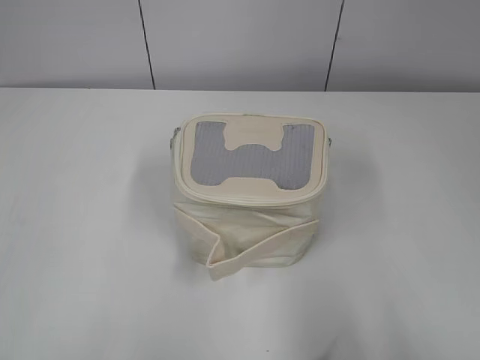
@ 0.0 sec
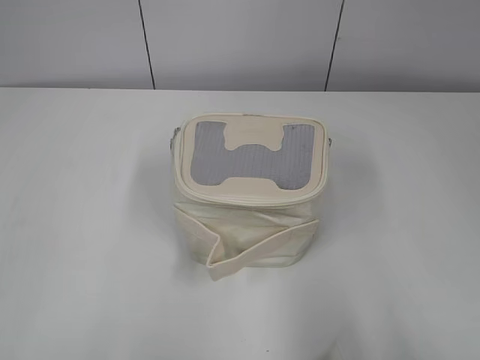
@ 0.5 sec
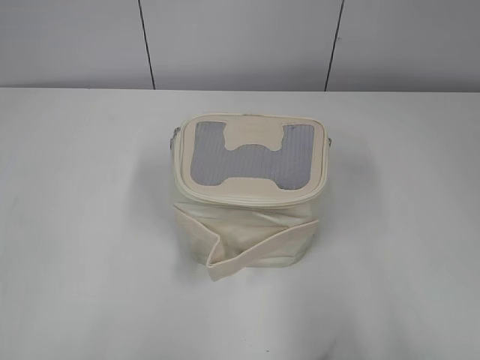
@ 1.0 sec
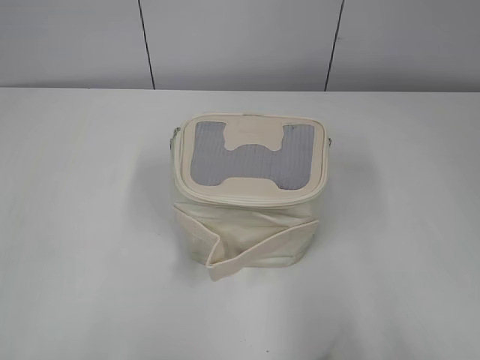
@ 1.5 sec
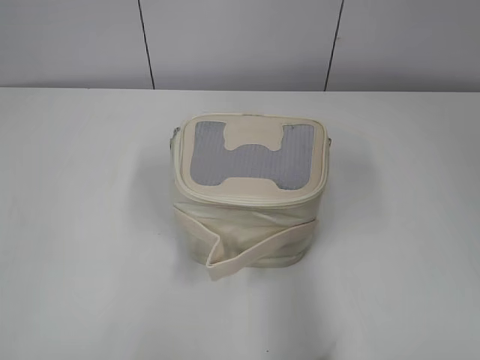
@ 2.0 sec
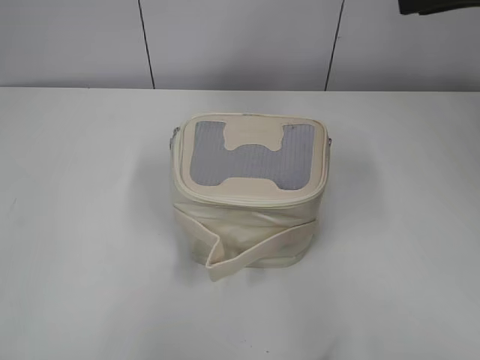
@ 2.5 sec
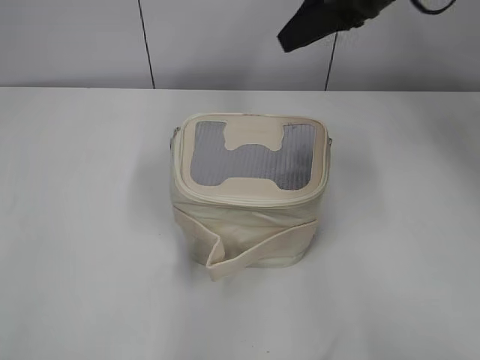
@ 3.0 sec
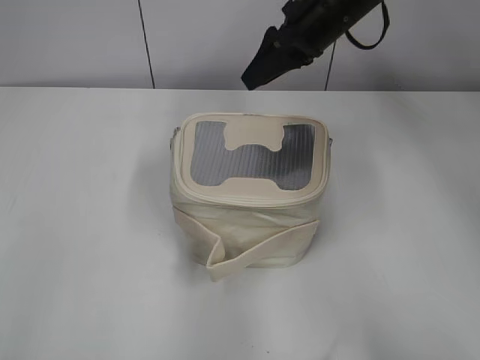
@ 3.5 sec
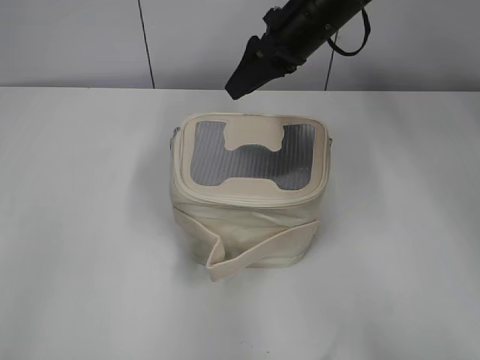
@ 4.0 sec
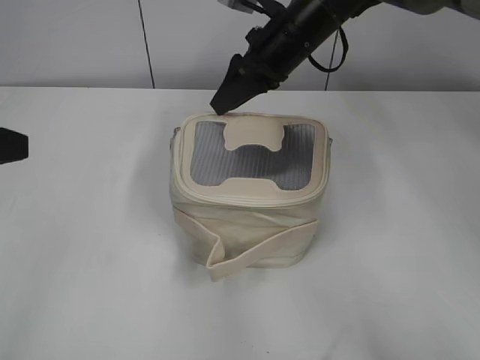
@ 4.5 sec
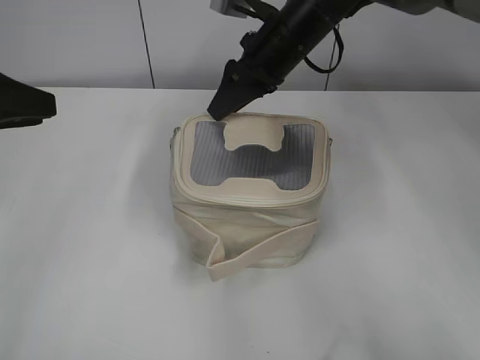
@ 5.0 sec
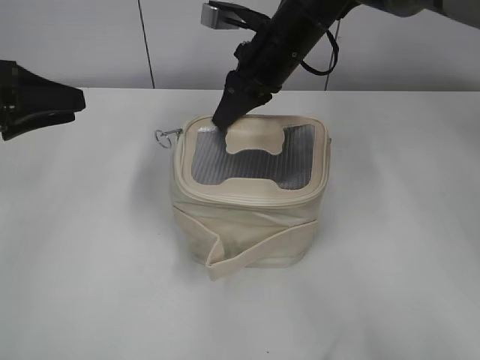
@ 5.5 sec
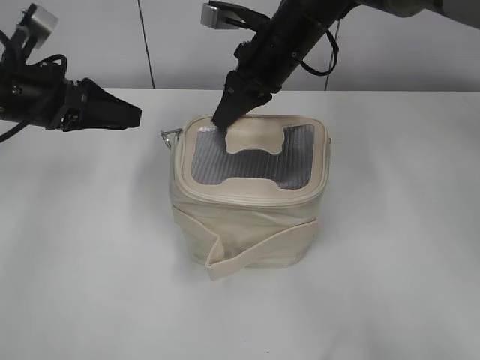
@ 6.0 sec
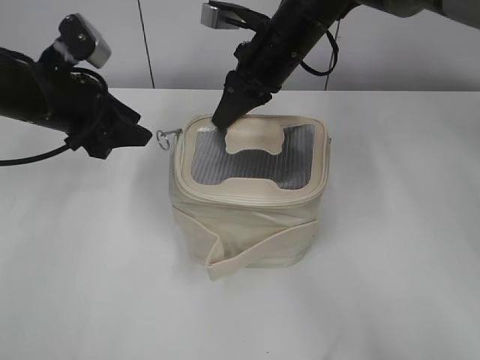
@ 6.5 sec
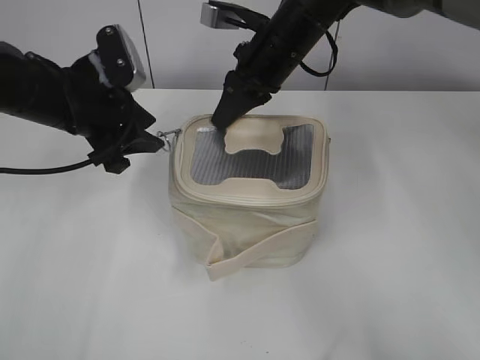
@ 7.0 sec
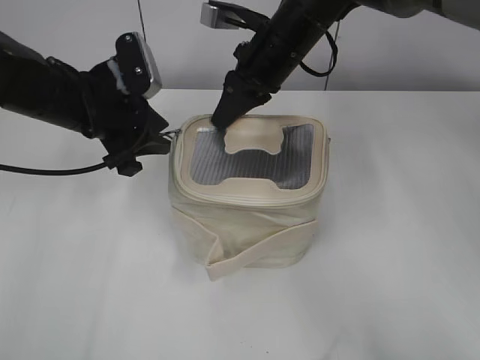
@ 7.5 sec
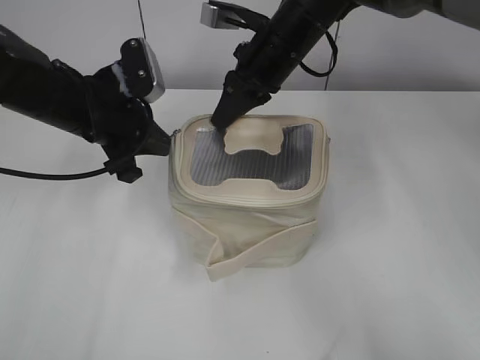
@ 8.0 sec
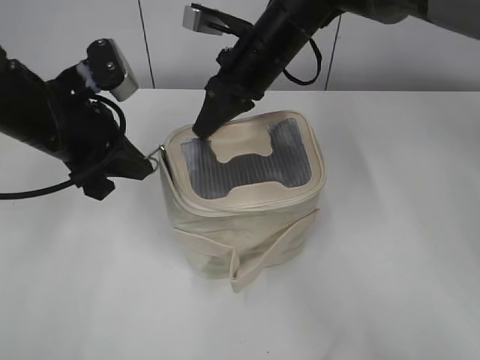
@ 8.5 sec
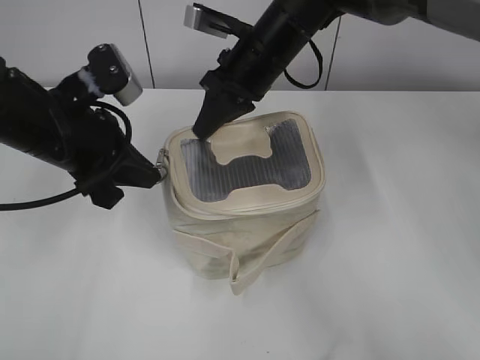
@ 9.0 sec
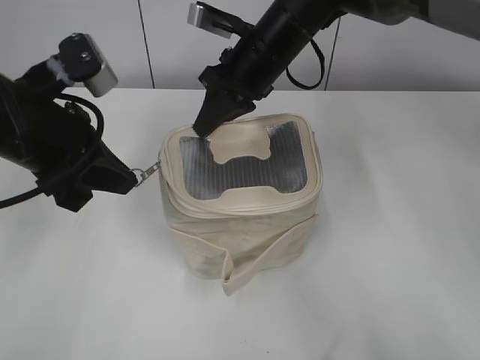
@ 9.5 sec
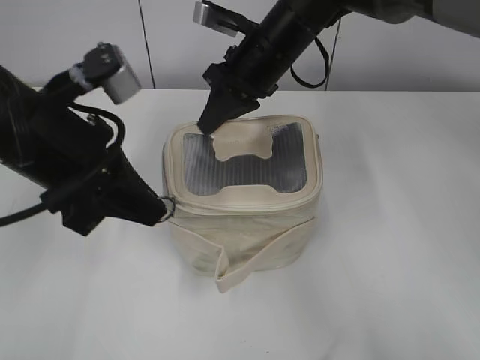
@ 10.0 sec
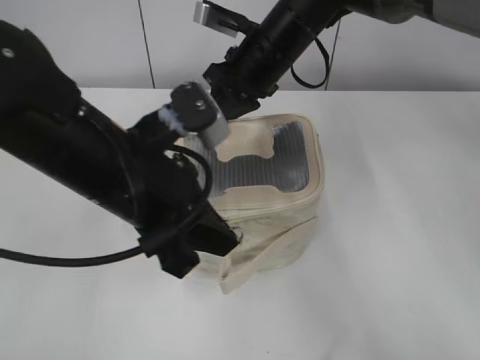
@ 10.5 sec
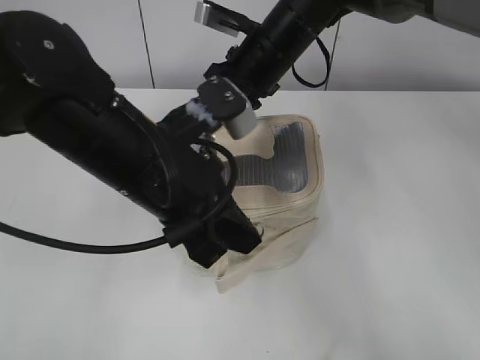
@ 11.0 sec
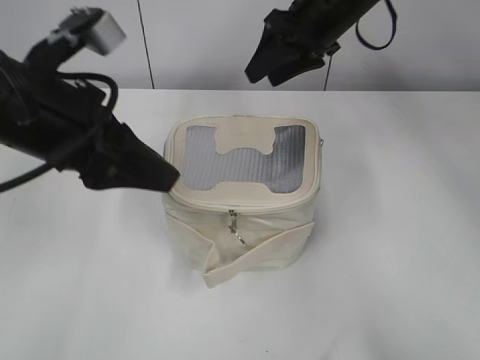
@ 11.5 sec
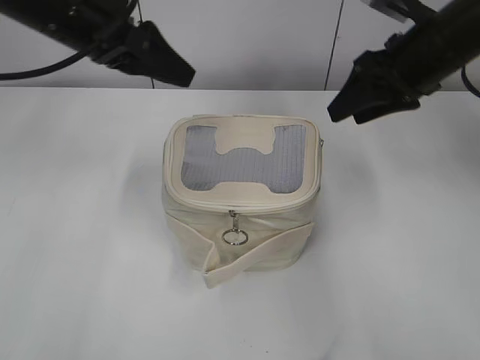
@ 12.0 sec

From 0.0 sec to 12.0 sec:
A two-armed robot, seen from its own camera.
Step, from 0.0 sec to 11.0 sec: Zip up the bag with your left hand.
From 2.0 sec to 4.0 sec: The right gripper shifts roughly 40 cm forward and to the left, while the left gripper is displaced forward by about 15 cm.
From 4.0 sec to 6.0 sec: The left gripper is displaced forward and downward by roughly 20 cm, while the right gripper closes up.
From 6.0 sec to 8.0 sec: The left gripper heads to the right, covering approximately 5 cm, and closes its fingers.
From 8.0 sec to 10.0 sec: The left gripper moves backward and upward, about 10 cm.
From 10.0 sec to 12.0 sec: The right gripper heads to the right, covering about 15 cm, and opens its fingers; the left gripper is displaced forward by roughly 10 cm, and opens.

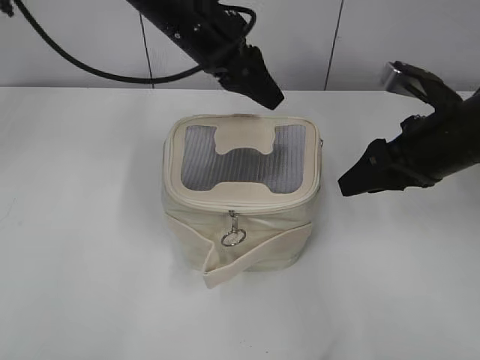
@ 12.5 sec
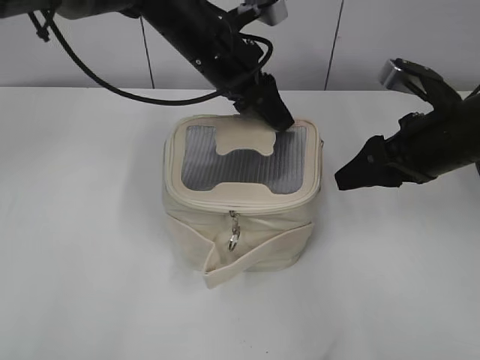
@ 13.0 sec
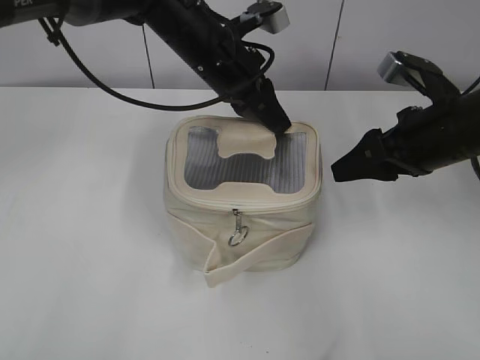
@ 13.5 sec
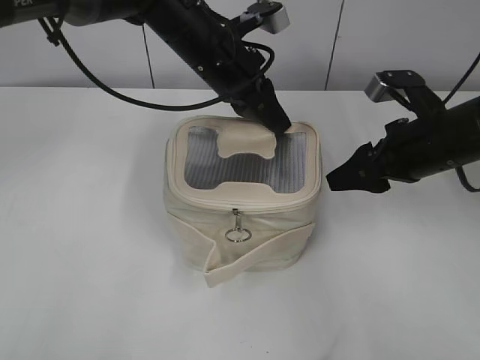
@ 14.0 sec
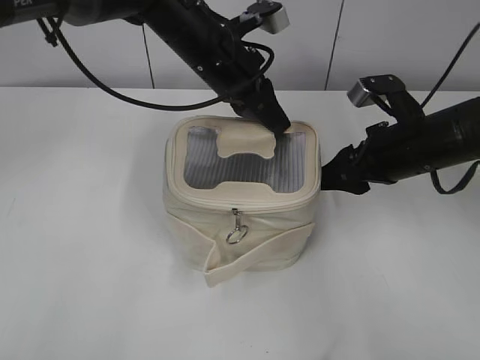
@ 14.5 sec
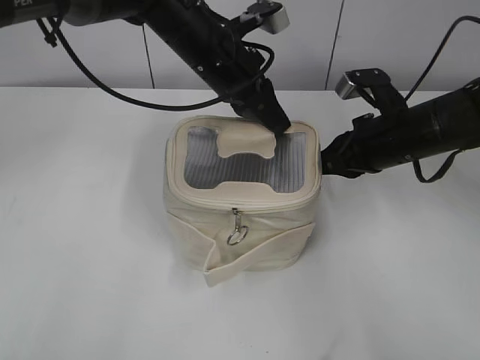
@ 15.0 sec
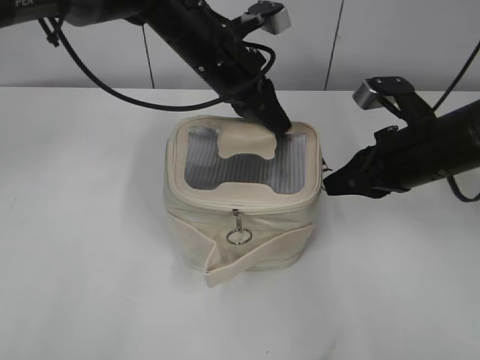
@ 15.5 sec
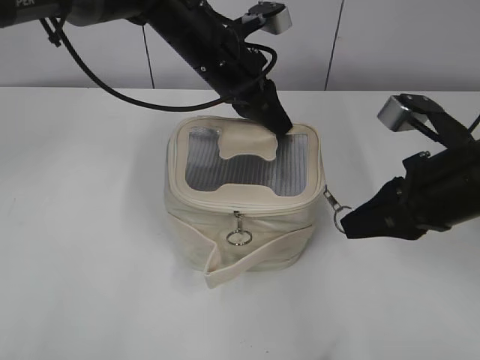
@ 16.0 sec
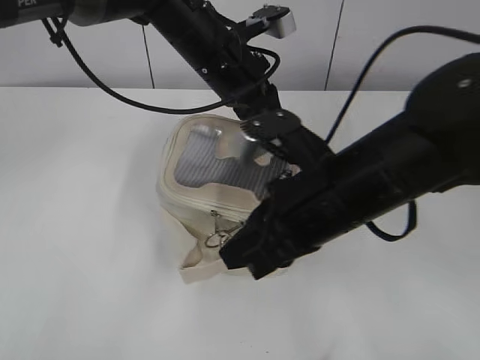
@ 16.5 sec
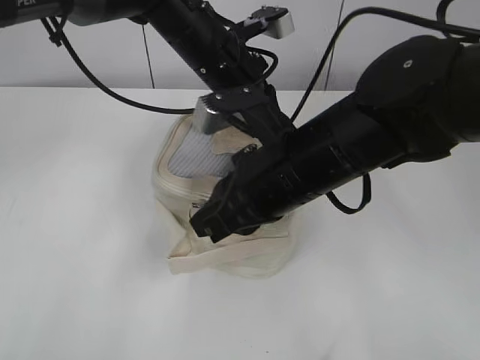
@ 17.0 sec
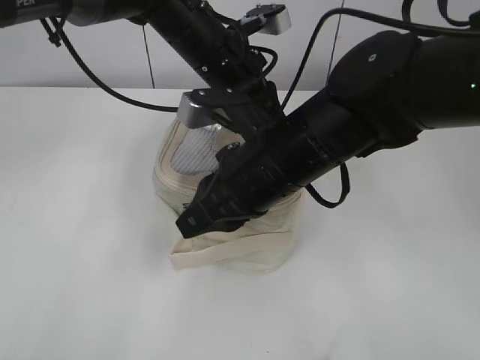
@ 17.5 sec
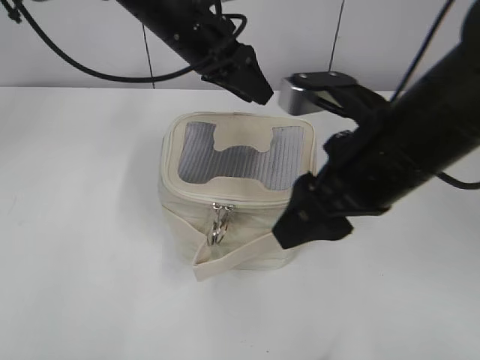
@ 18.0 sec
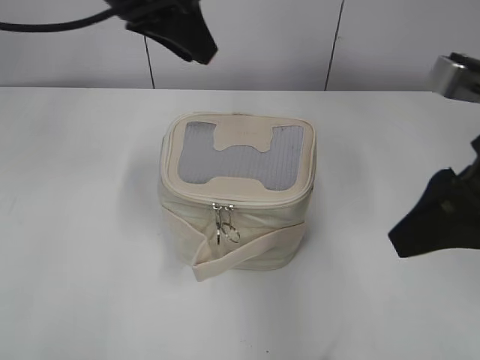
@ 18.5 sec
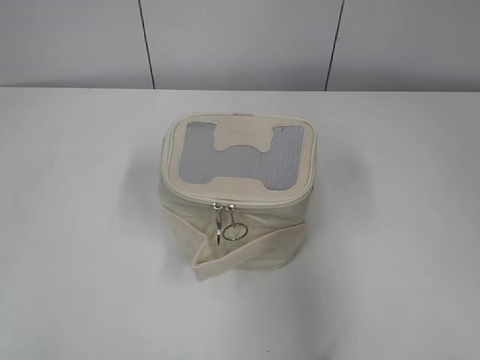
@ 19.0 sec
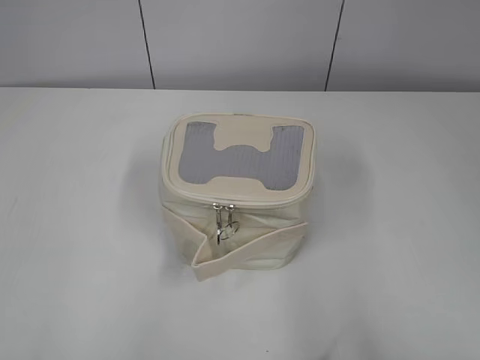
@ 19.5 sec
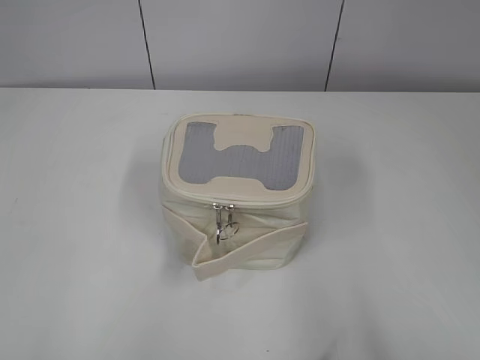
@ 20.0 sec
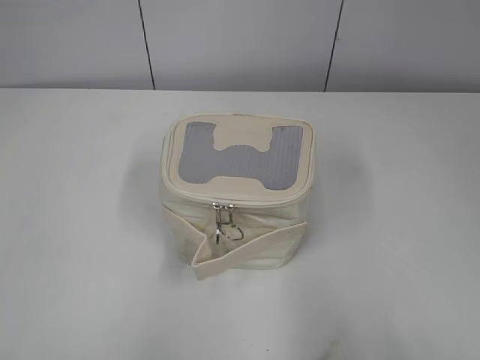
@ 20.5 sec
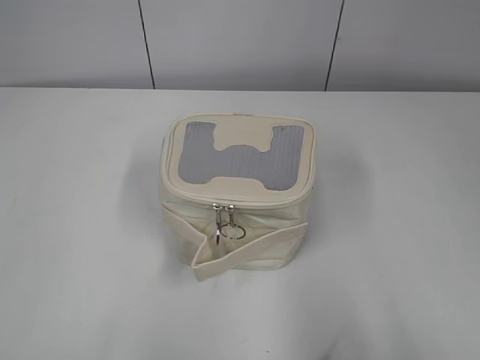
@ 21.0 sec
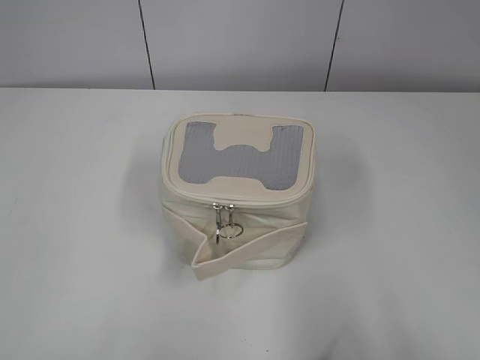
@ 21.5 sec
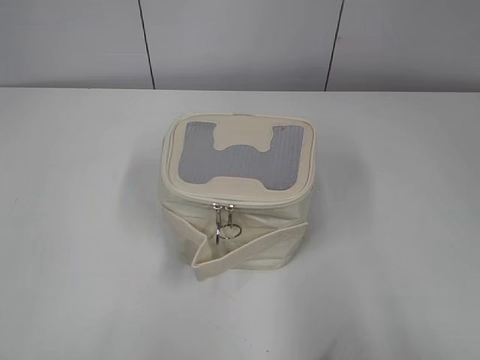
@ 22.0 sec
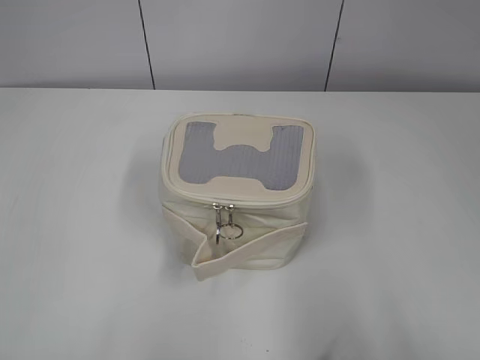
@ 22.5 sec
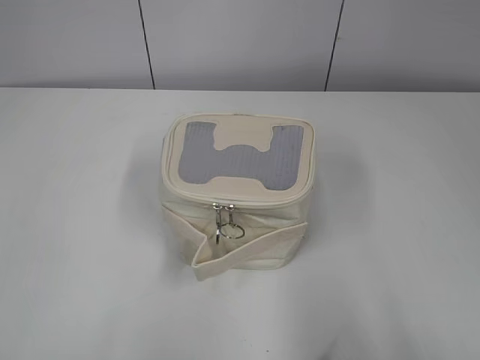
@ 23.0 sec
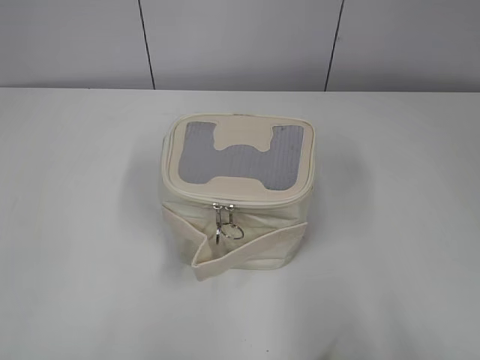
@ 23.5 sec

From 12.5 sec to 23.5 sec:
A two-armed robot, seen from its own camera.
Step, from 12.5 sec to 17.5 sec: Zip up the bag with your right hand.
From 12.5 sec to 14.5 sec: The left gripper closes up.
From 14.5 sec to 16.0 sec: The right gripper goes roughly 10 cm backward, and closes.
From 16.0 sec to 18.0 sec: The right gripper heads to the left, covering roughly 10 cm, and opens; the left gripper opens its fingers.
From 18.0 sec to 20.0 sec: The left gripper travels backward and to the left by roughly 50 cm, while the right gripper shifts approximately 30 cm backward and to the right.
From 21.5 sec to 23.5 sec: Neither gripper changes place.

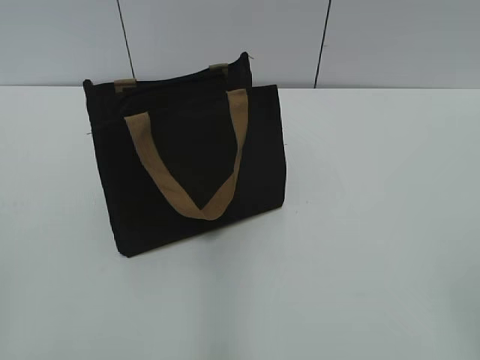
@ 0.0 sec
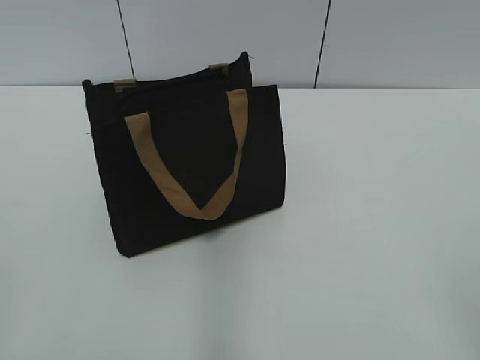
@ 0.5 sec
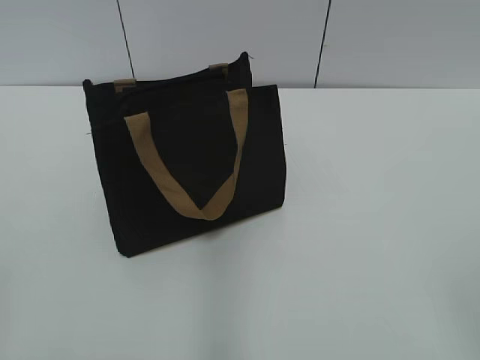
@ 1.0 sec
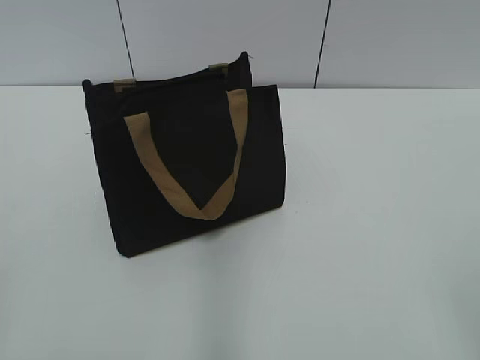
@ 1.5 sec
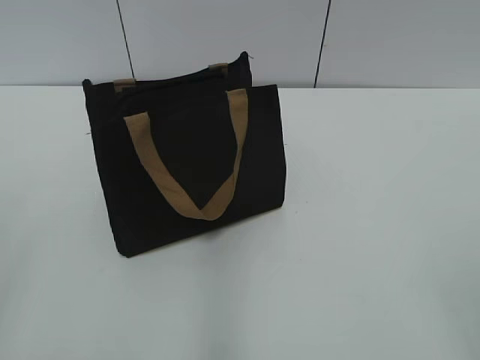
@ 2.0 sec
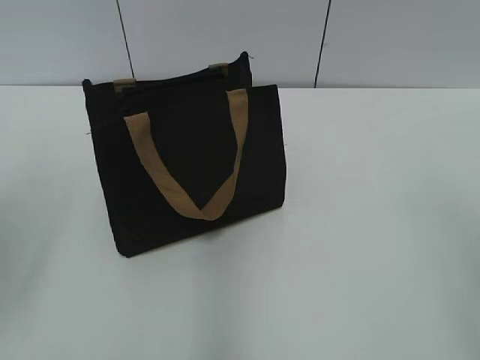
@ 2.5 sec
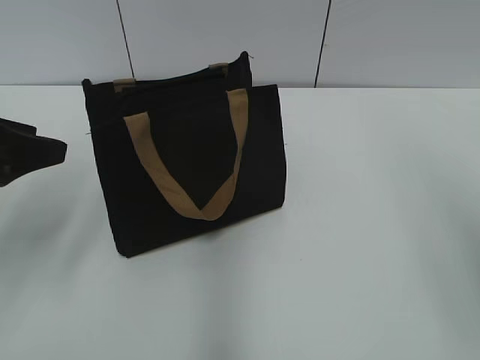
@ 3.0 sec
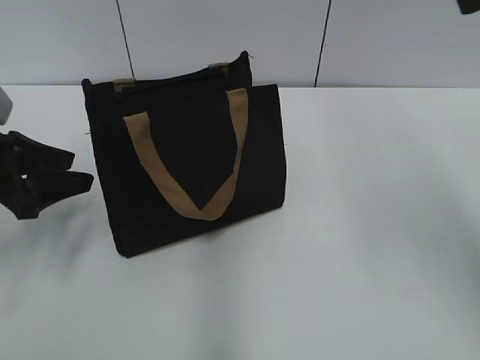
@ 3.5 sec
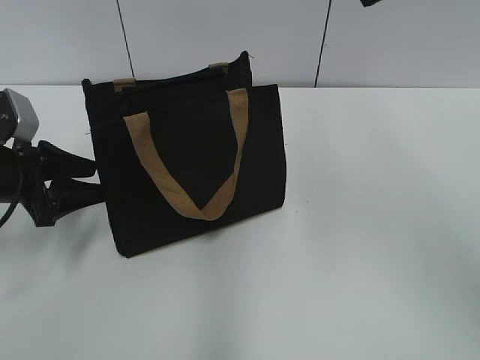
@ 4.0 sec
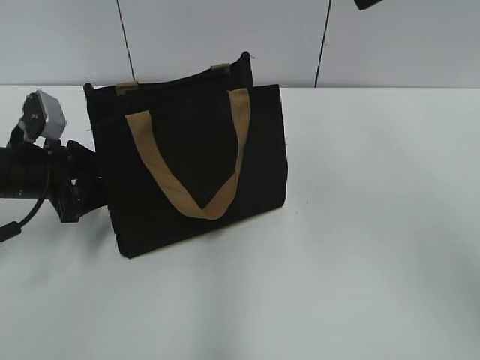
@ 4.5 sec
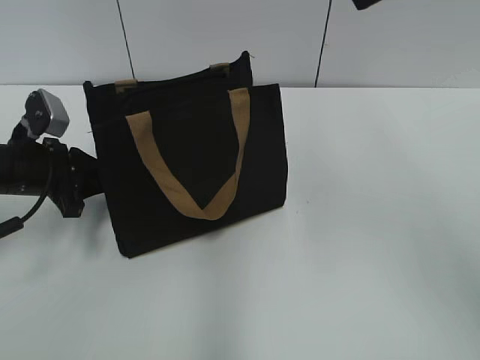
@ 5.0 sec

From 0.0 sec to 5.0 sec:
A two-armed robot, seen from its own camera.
From 2.5 sec to 5.0 sec: The left gripper moves downward and forward, about 25 cm, and closes its fingers. Meanwhile the right gripper is displaced forward and to the left by roughly 25 cm.
